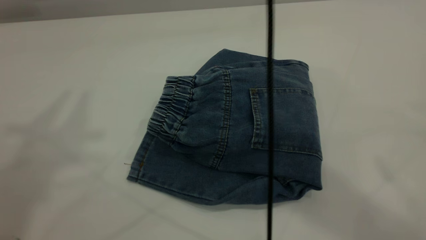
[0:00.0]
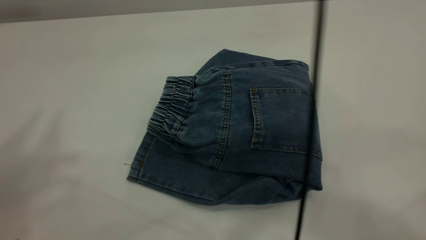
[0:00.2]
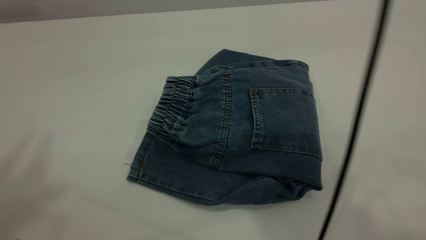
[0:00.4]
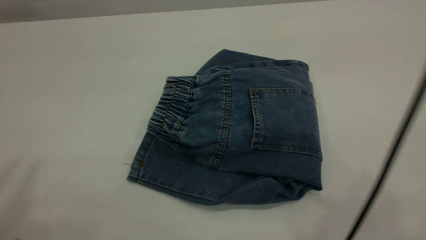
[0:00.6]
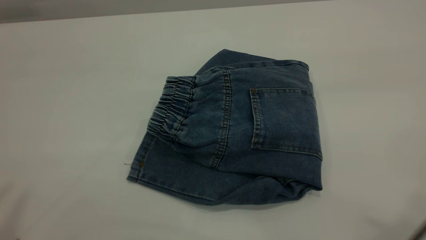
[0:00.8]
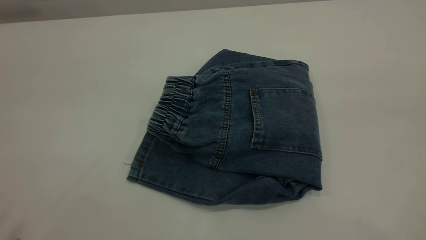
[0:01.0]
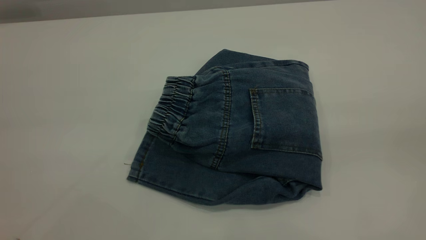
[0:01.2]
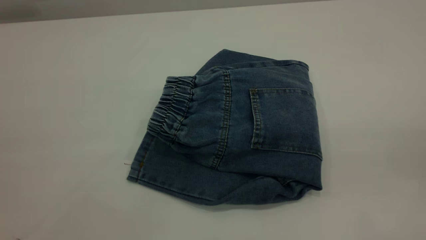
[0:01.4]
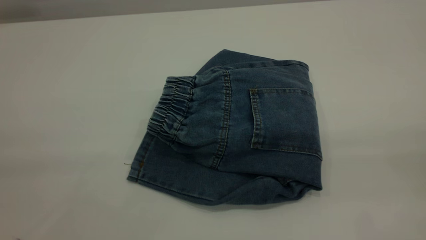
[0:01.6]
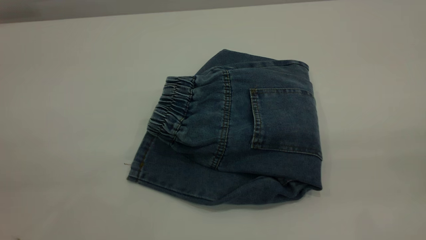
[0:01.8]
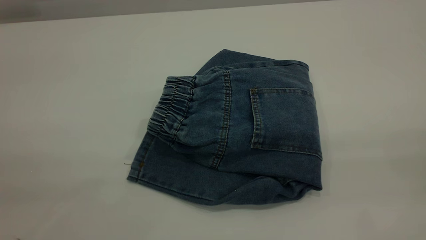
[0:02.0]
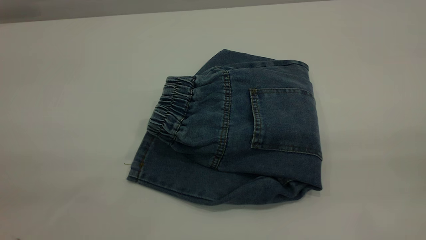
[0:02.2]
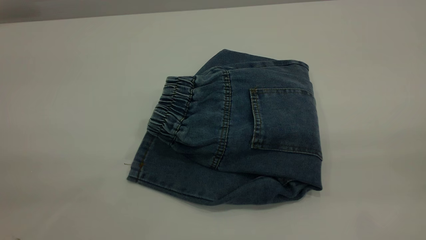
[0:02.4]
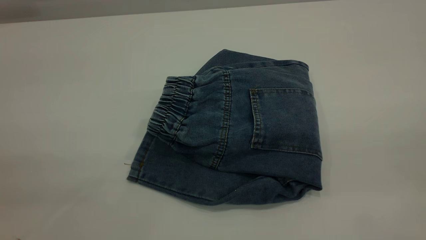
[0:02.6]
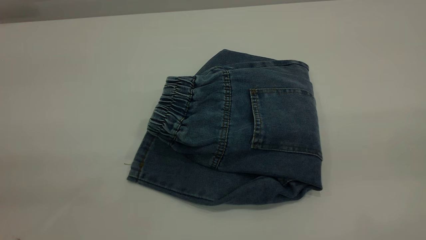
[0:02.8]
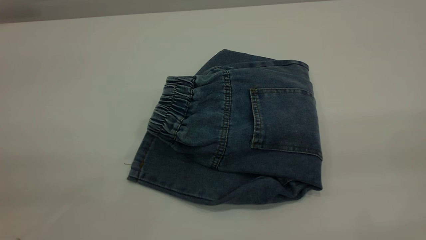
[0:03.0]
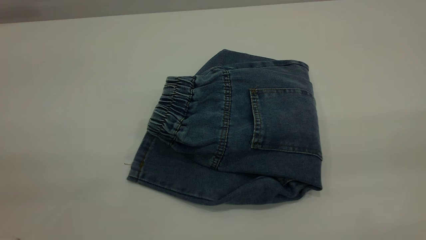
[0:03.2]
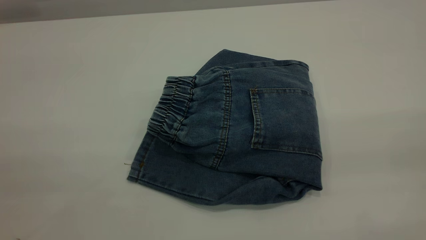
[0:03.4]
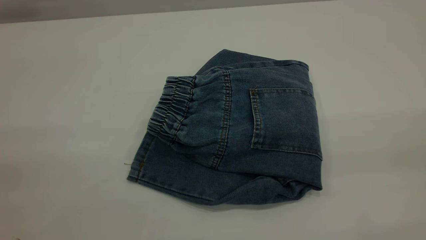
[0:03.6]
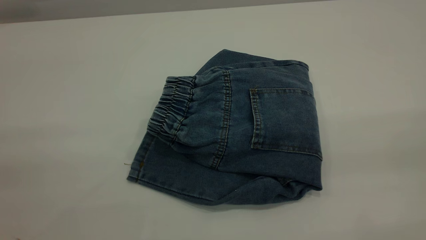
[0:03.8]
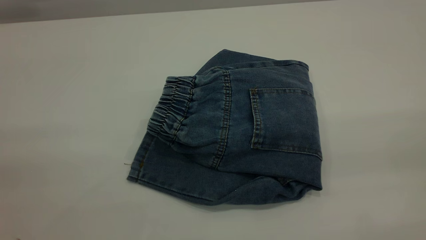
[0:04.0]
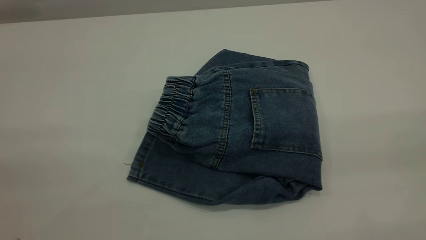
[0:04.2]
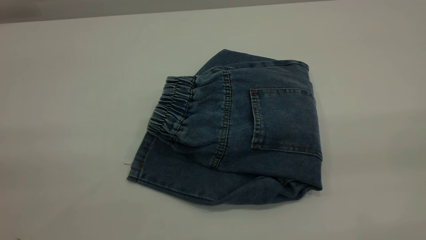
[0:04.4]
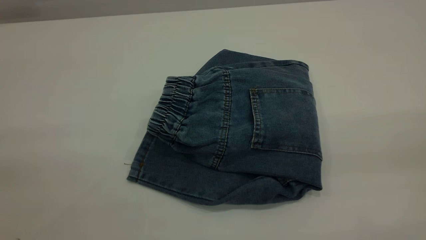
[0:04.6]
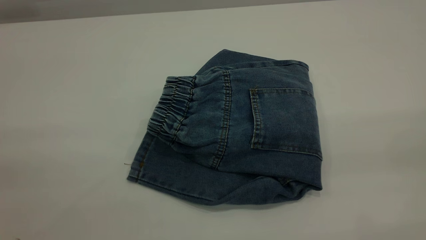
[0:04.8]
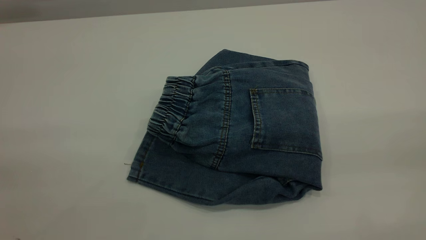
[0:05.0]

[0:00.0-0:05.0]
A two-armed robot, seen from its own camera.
0:00.0 to 0:01.6: The right gripper heads to the right, backward and downward, covering some 40 cm. The left gripper is displaced backward and downward by about 25 cm.
